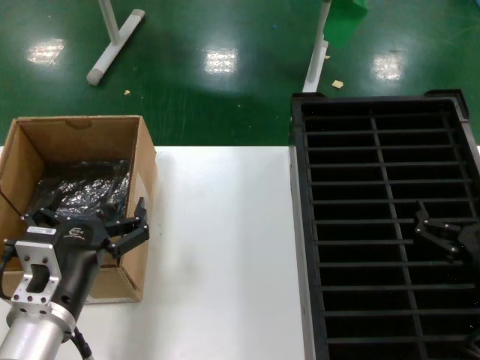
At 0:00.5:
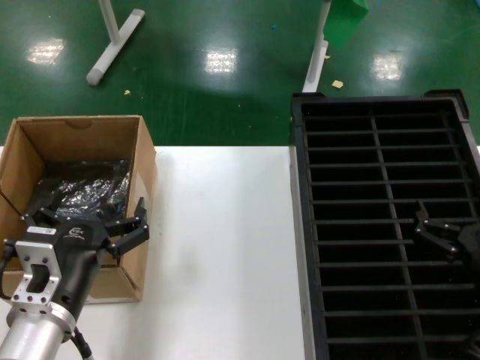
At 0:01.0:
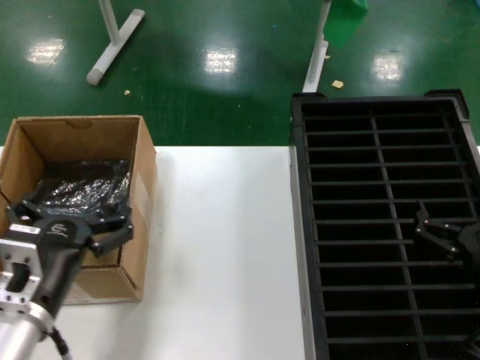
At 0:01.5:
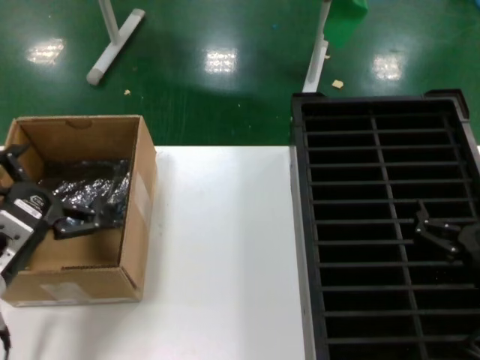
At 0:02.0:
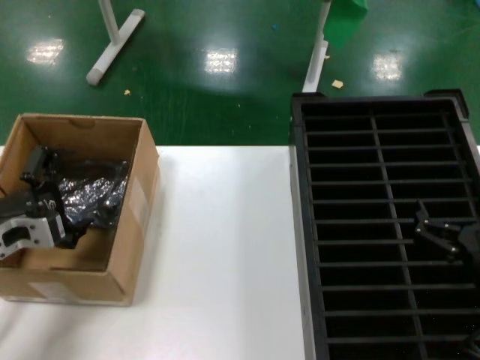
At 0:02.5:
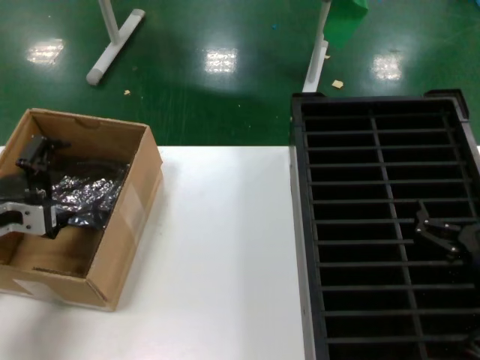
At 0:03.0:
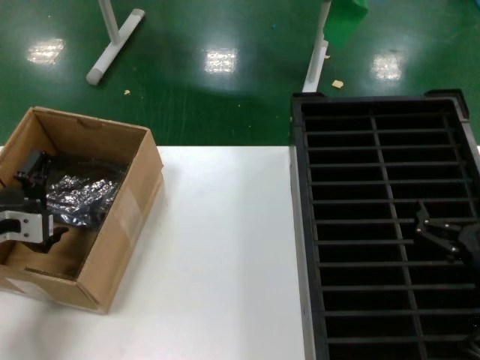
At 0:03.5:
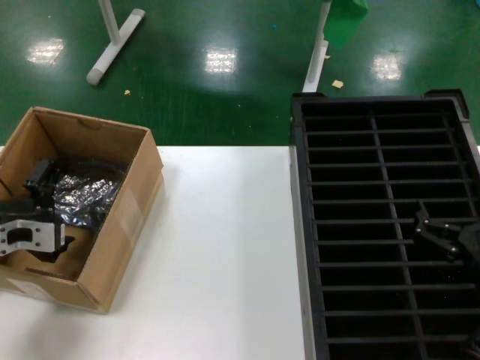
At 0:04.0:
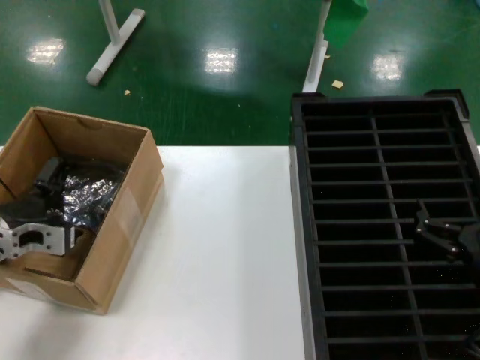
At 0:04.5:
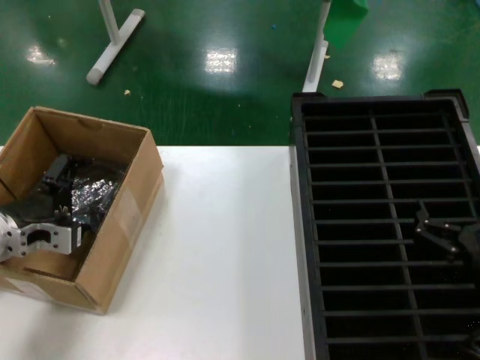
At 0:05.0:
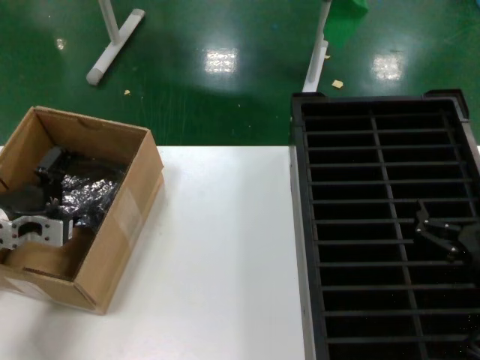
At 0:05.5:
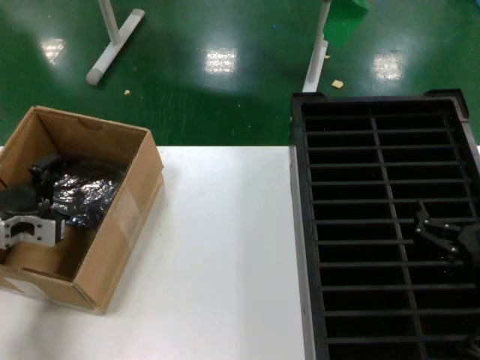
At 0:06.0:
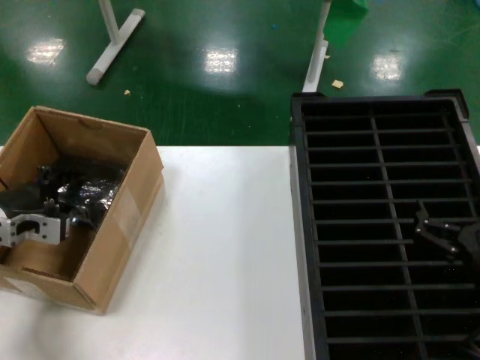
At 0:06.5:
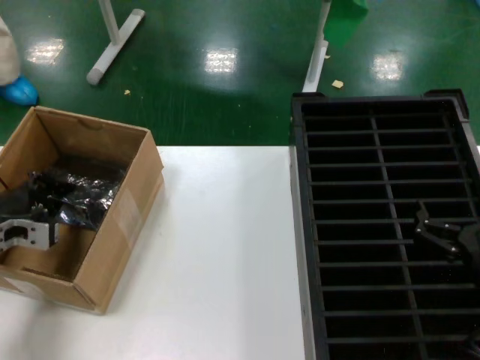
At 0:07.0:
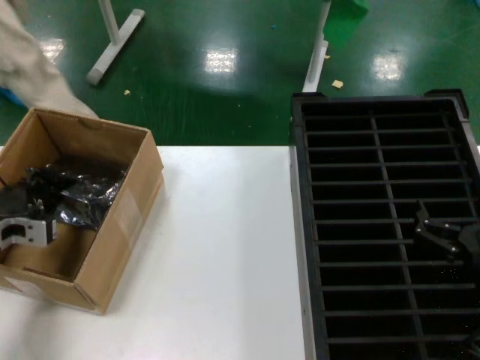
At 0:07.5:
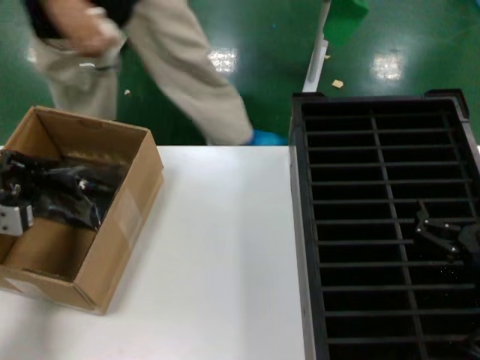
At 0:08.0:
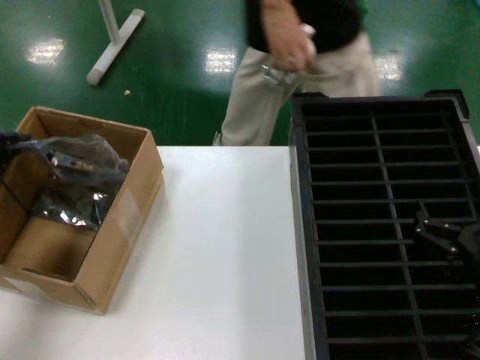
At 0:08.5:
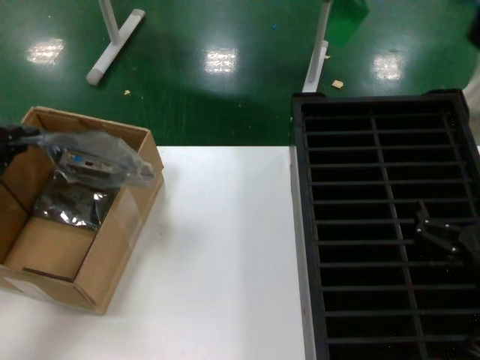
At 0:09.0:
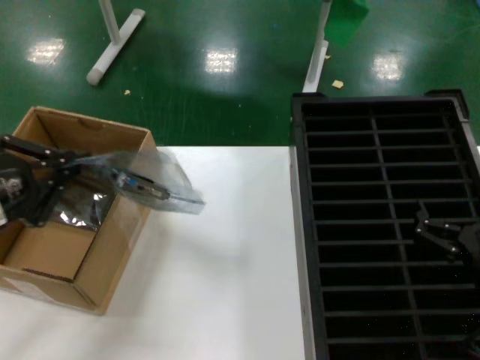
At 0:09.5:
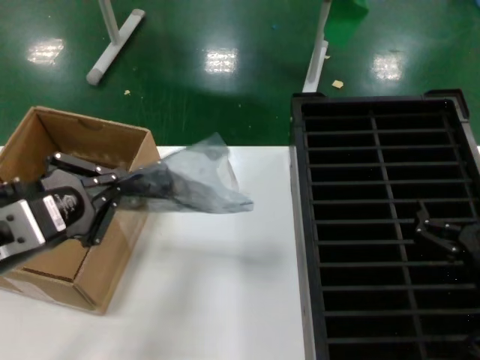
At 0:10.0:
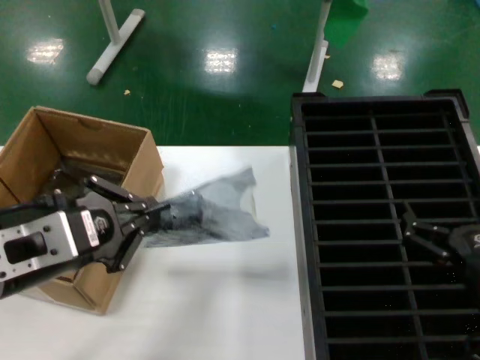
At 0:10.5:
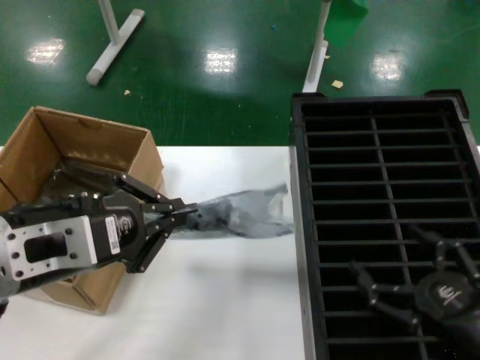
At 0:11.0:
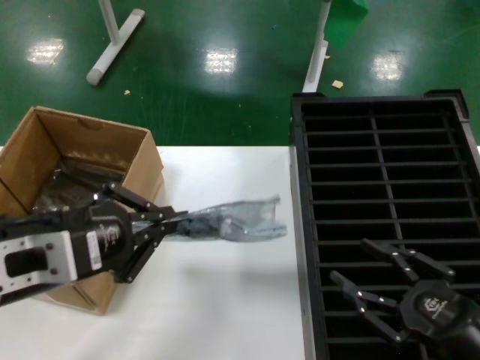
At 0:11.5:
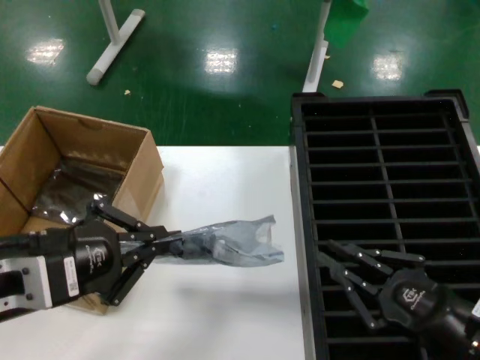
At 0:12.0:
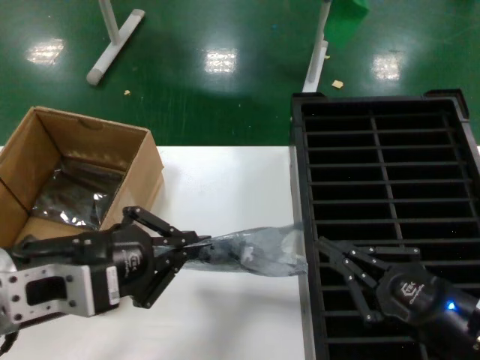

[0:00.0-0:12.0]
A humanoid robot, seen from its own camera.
Task of the whole recording: take out graphics card from box remove packaging put into black container.
Step, 0:00.0 to 0:06.5: Grasp the bag.
Step, 0:07.0 to 0:10.0: Lift the bag.
0:00.0 to 0:02.0: The left hand travels to the left and forward by approximately 15 cm.
0:02.0 to 0:04.0: The hands move only a little.
0:04.0 to 0:06.0: The hands move only a little.
0:06.0 to 0:08.0: The left hand heads upward and backward, covering about 15 cm.
0:08.0 to 0:10.0: The left hand goes roughly 20 cm to the right and backward.

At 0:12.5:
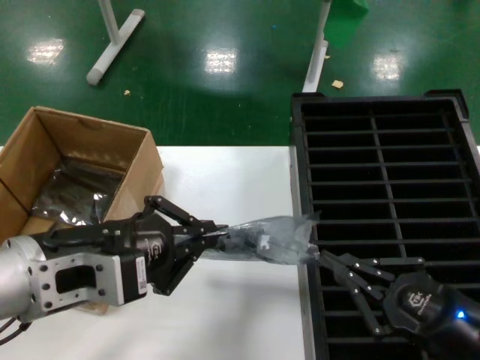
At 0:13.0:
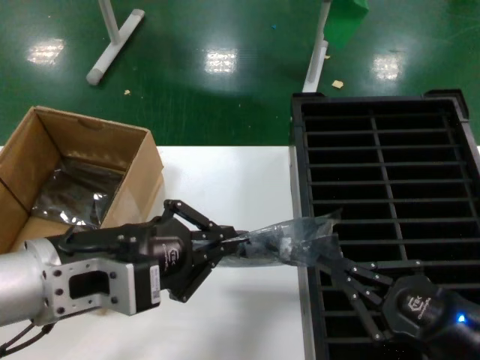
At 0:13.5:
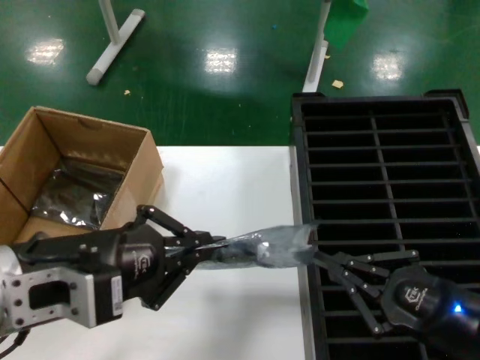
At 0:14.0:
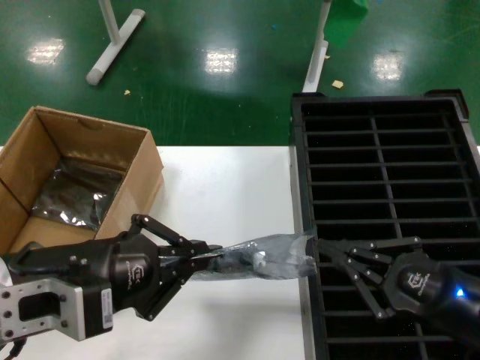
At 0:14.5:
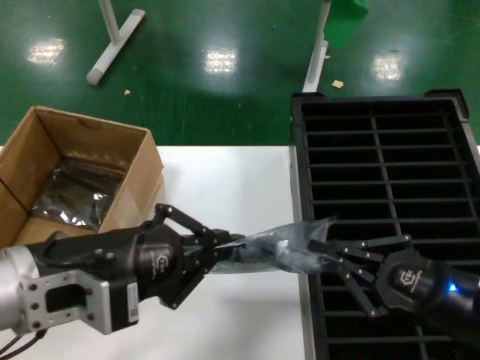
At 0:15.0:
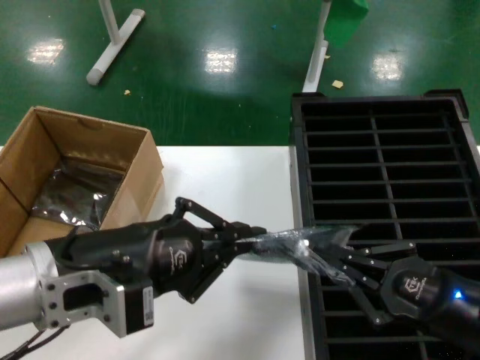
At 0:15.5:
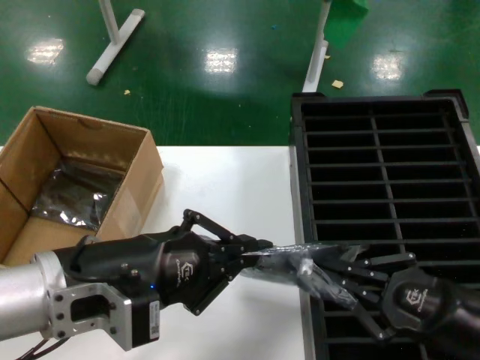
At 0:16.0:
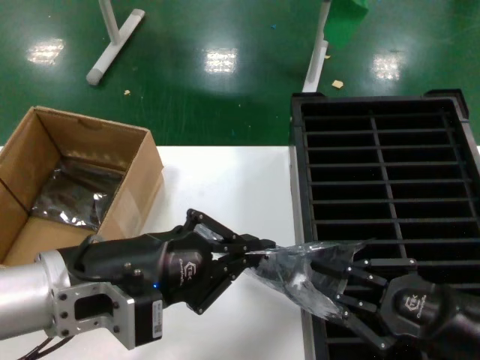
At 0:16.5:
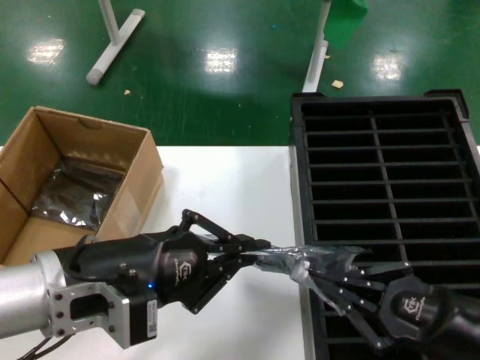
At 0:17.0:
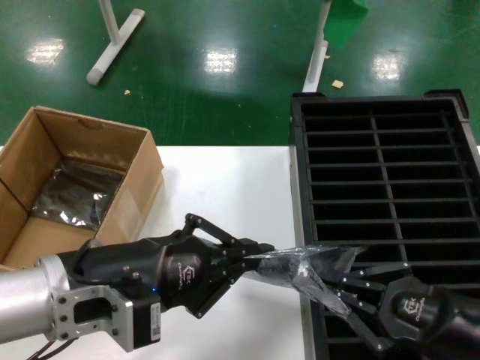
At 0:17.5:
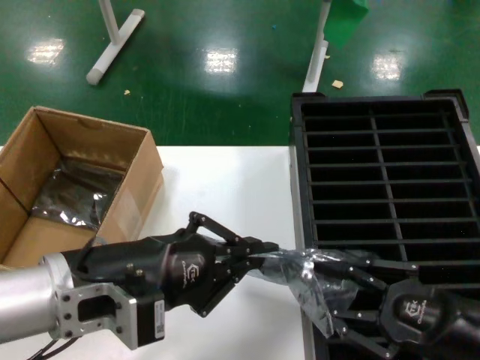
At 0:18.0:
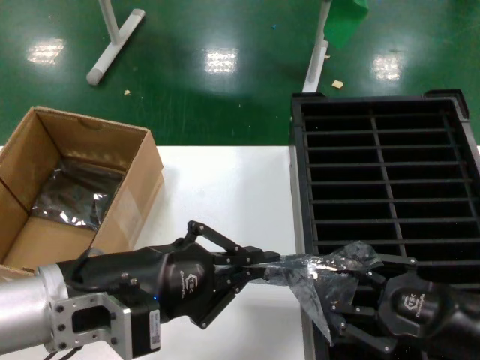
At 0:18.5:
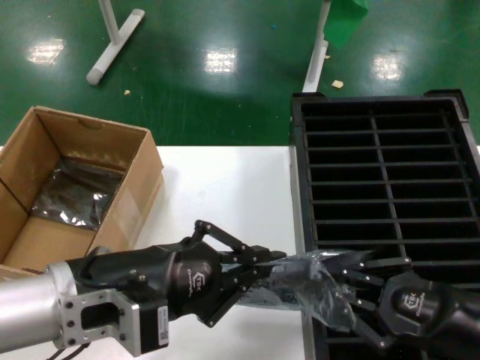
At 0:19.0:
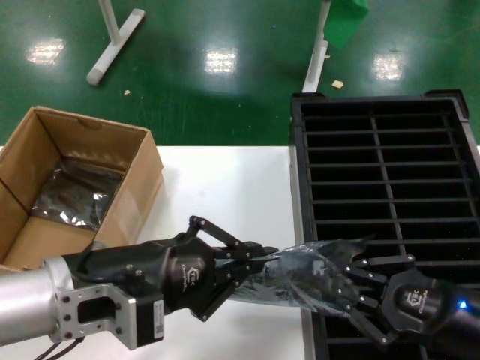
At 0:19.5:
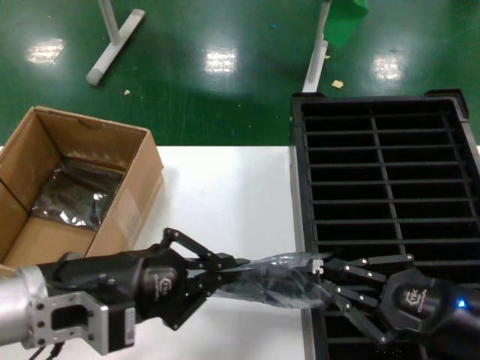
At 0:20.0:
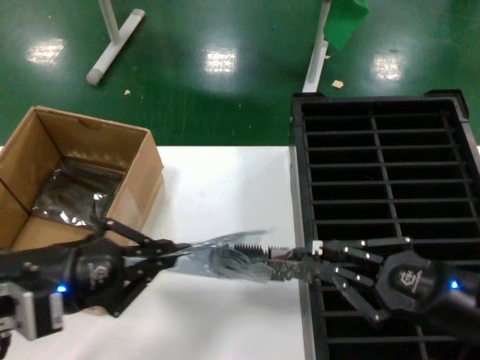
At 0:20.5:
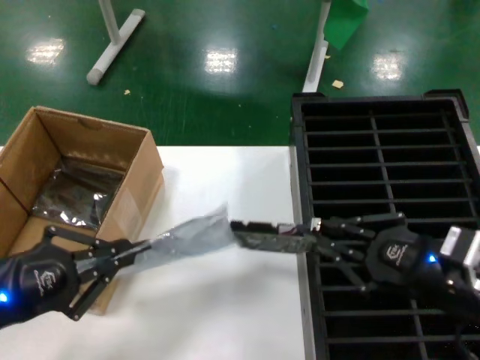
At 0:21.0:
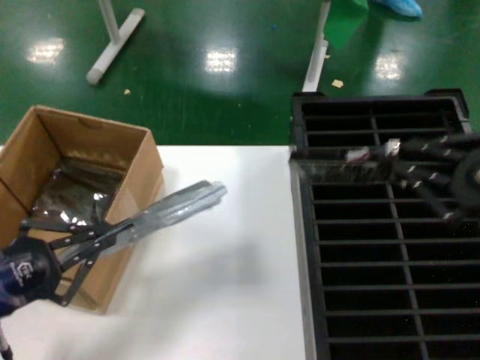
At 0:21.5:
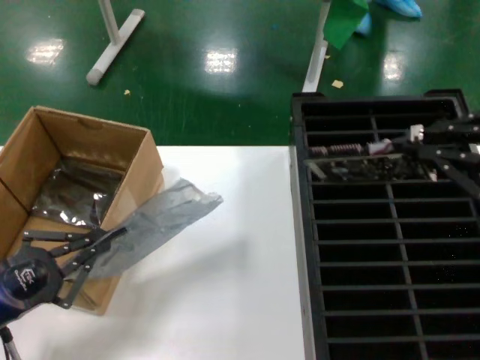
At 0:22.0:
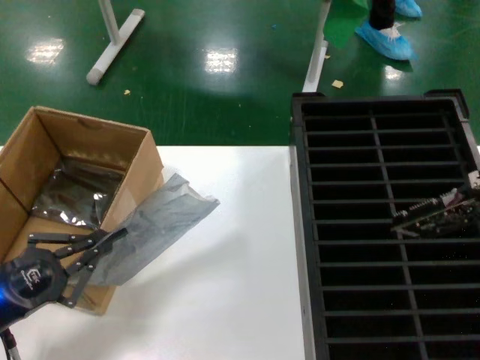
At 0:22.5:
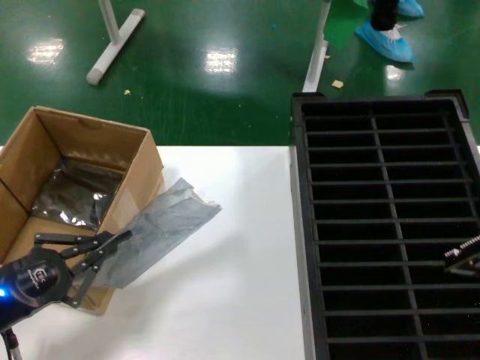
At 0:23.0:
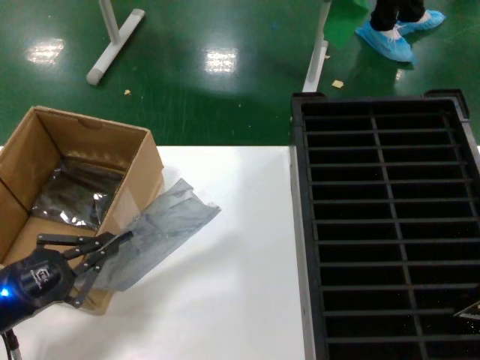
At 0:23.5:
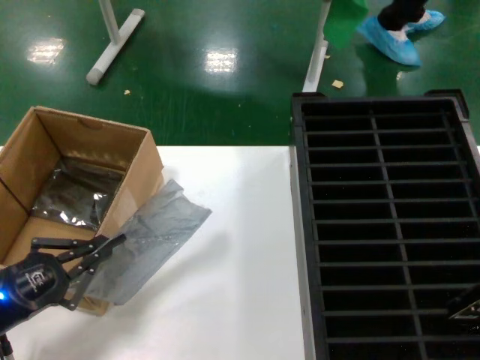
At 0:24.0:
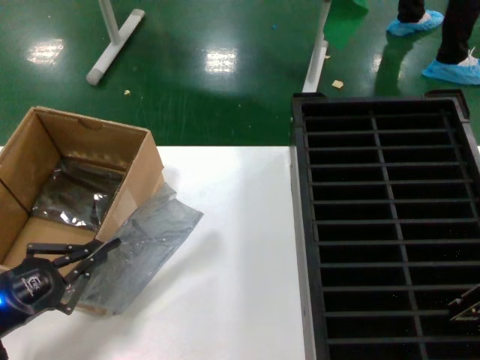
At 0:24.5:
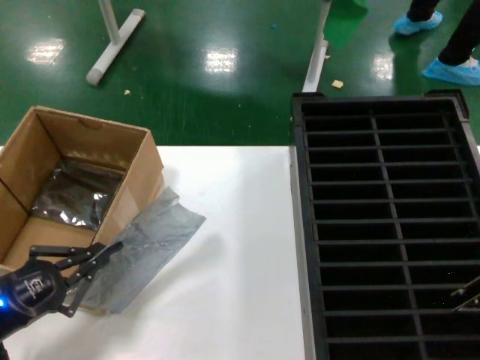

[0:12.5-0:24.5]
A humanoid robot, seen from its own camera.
Task of the whole recording: take out graphics card from box remove packaging put into black container.
Step, 0:12.5 to 0:20.0: Take out the hard disk of the bag.
0:12.5 to 0:16.5: The hands stay close to where they were, moving slightly.
0:16.5 to 0:18.5: Both hands stay about where they are.
0:18.5 to 0:20.5: The left hand moves to the left, some 15 cm.
0:20.5 to 0:22.5: The right hand shifts roughly 25 cm upward; the left hand travels downward, forward and to the left by roughly 15 cm.
0:22.5 to 0:24.5: The hands stay close to where they were, moving slightly.

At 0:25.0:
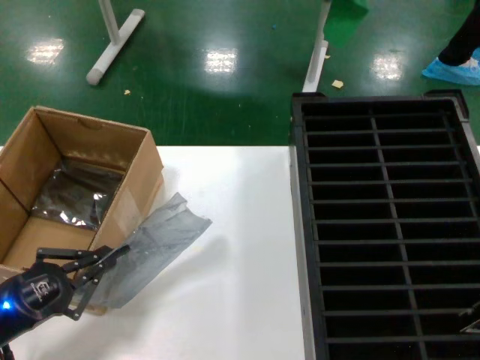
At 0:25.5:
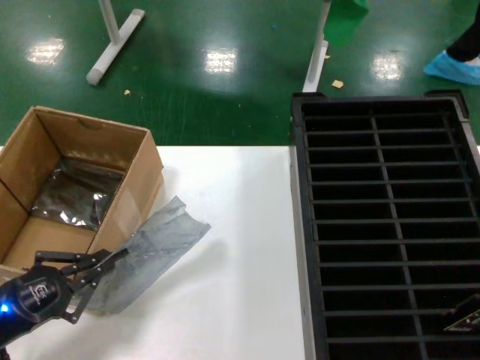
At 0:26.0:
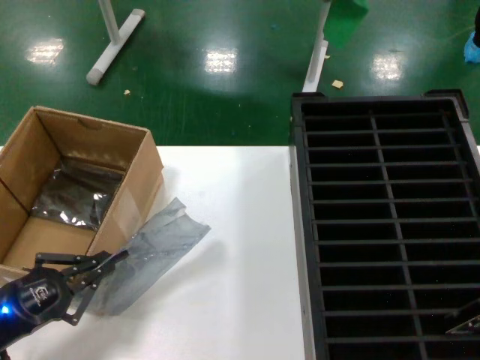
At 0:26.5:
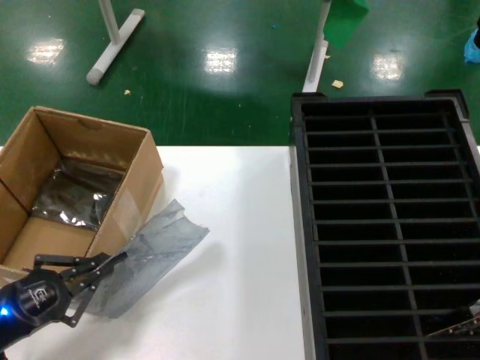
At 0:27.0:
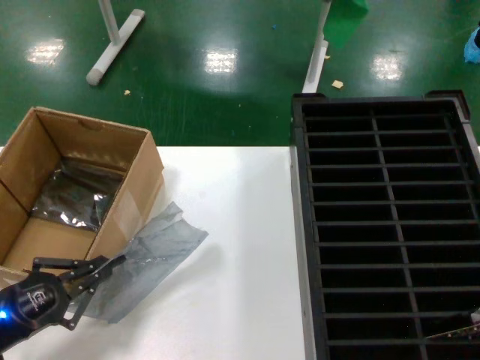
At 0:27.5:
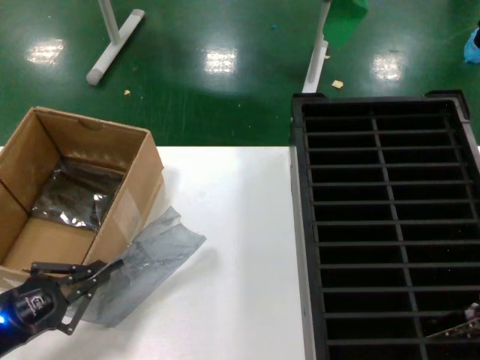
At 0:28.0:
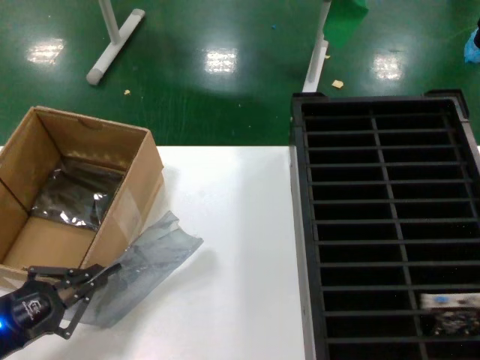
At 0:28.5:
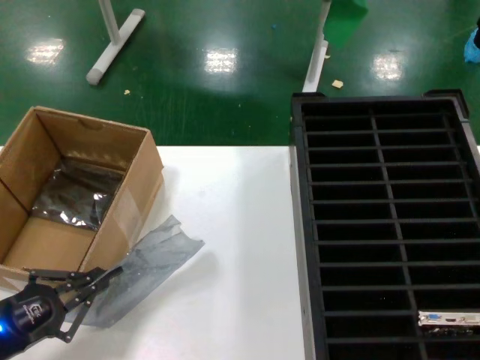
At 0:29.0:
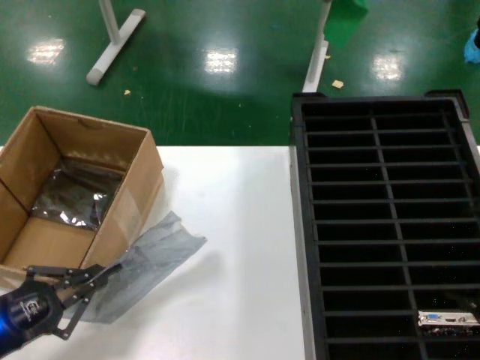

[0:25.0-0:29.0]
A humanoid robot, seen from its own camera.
Task of the whole recording: take out graphics card from box remove packaging put into black container.
Step, 0:25.0 to 0:28.0: Place the hard disk in the hard disk enclosure.
0:25.0 to 0:27.0: The right hand travels downward by roughly 5 cm.
0:27.0 to 0:29.0: The hands stay close to where they were, moving slightly.
